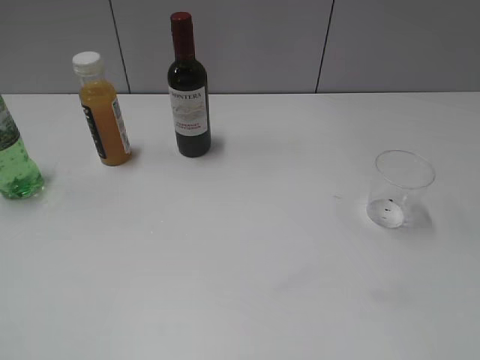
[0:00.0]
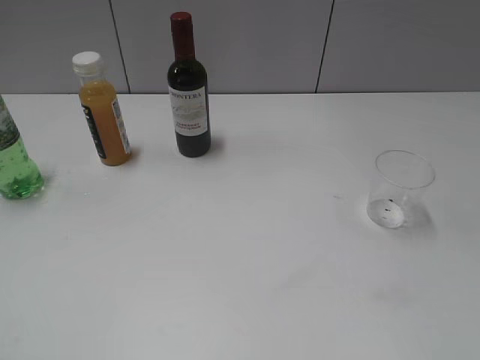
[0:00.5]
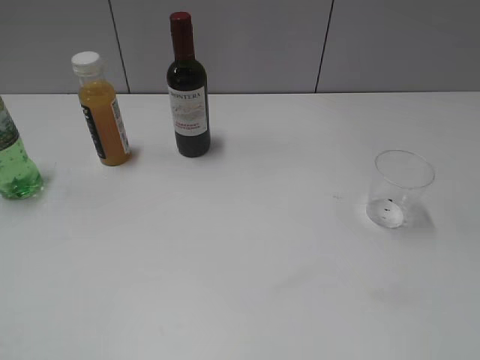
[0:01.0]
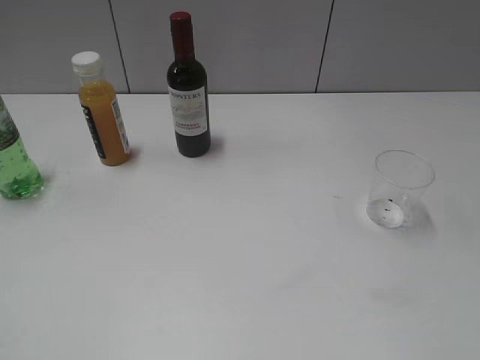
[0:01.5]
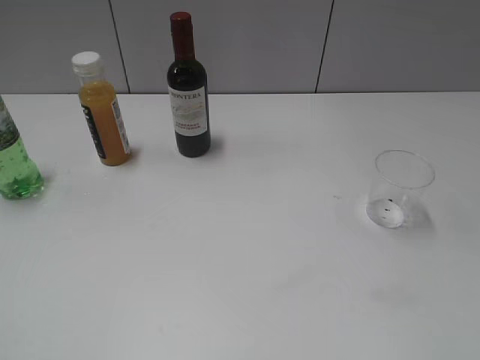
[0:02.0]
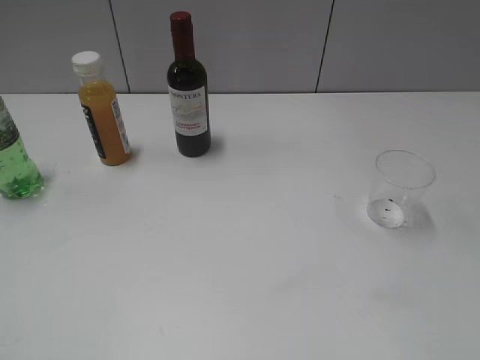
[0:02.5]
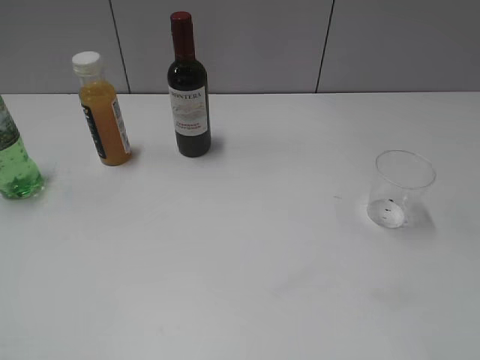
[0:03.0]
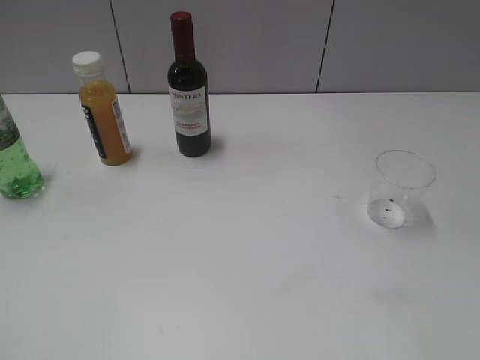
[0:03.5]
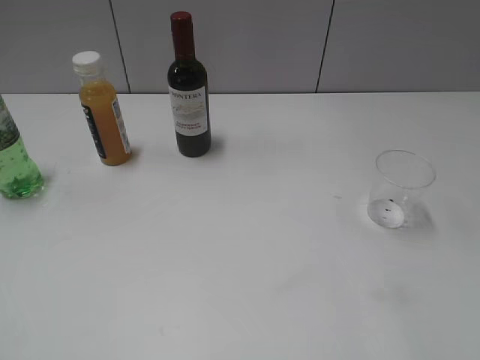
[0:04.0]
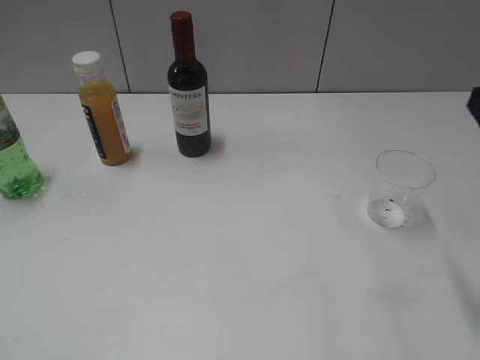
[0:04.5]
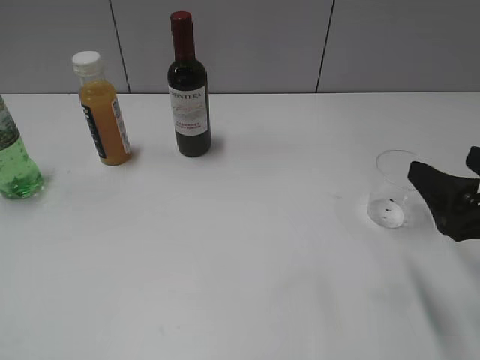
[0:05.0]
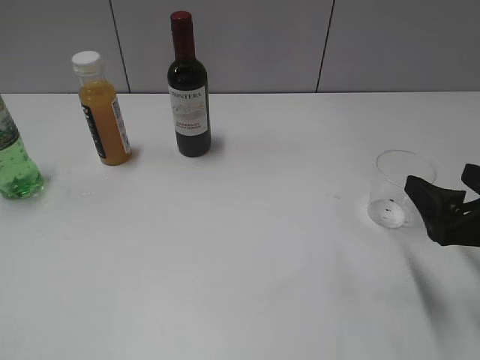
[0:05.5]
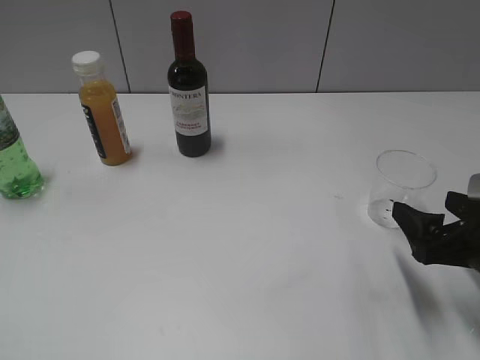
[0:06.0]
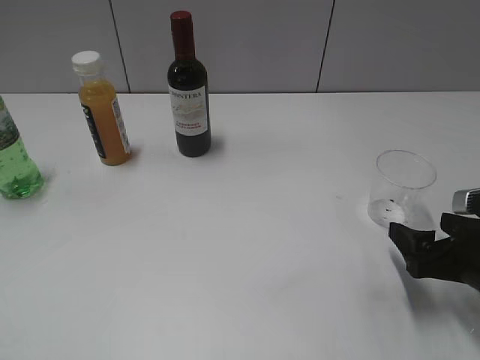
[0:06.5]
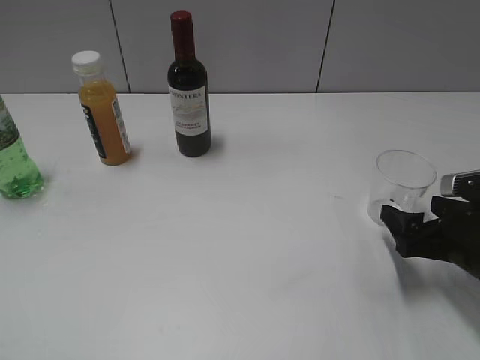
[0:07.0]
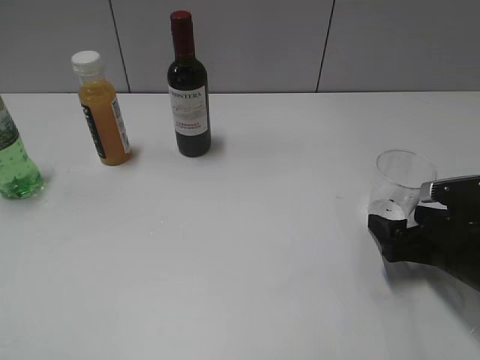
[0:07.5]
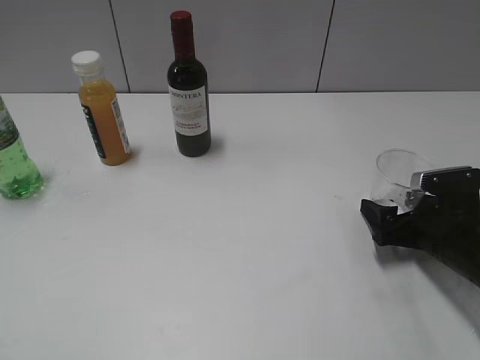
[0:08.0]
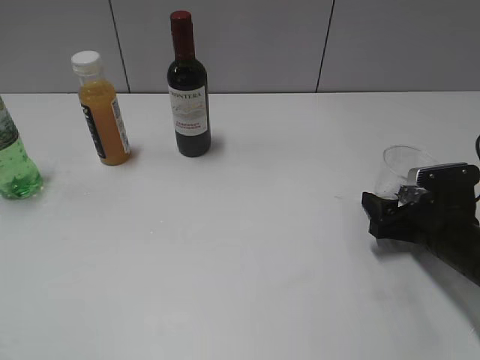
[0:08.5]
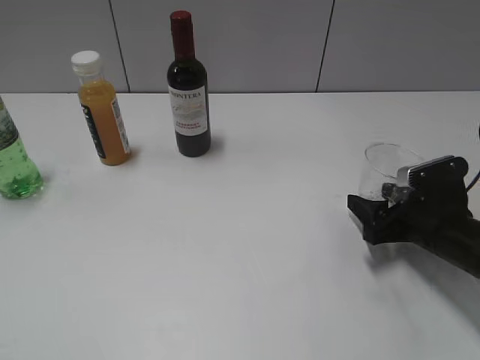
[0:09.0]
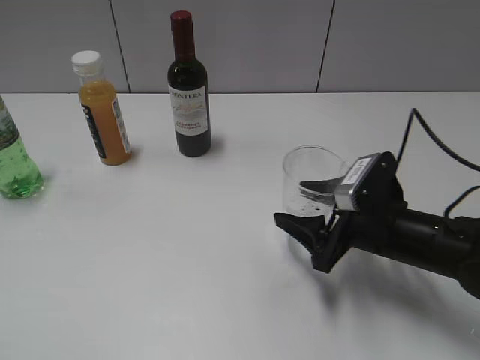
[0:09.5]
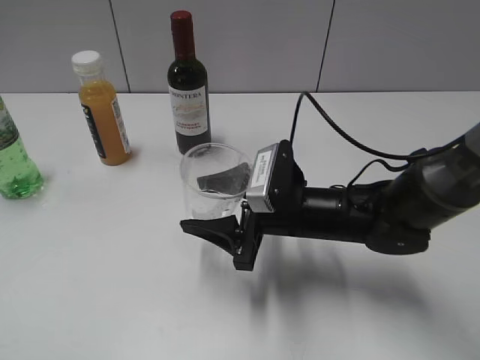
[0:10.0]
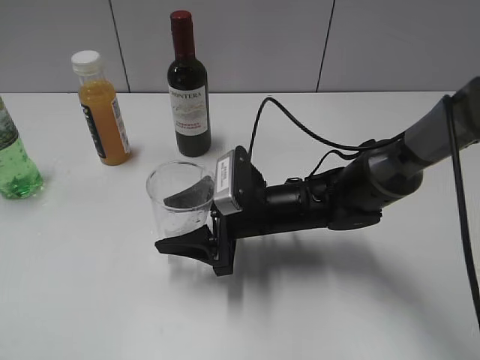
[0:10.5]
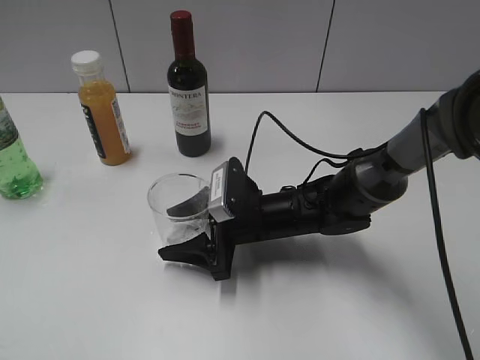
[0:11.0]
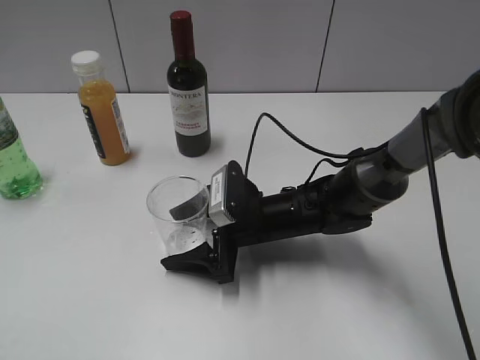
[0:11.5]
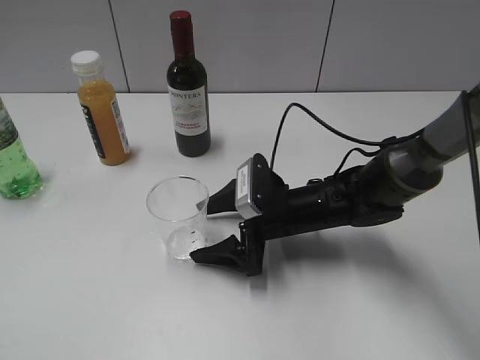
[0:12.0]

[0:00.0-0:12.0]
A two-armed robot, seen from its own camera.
Step, 0:02.5 to 0:08.5: Grasp the transparent cup with right gripper.
0:04.0 to 0:06.0: The right gripper moves downward and forward, roughly 20 cm, and opens.
0:06.0 to 0:08.0: The right gripper moves downward and forward, about 10 cm.
0:08.0 to 0:10.0: The right gripper moves to the left, roughly 20 cm, and closes up.
0:10.0 to 0:12.0: The right gripper moves about 5 cm, and opens its fingers.

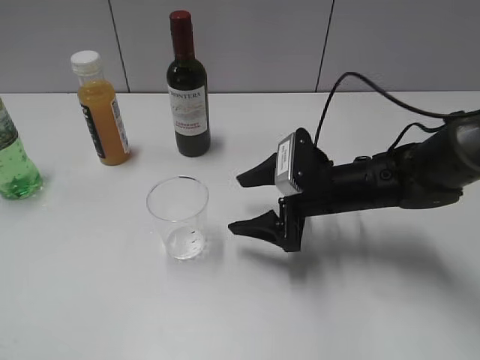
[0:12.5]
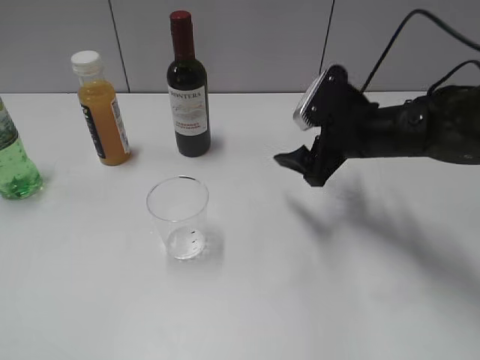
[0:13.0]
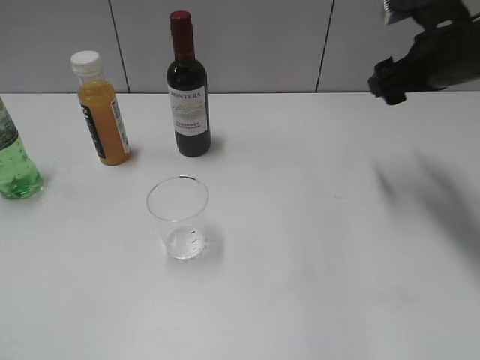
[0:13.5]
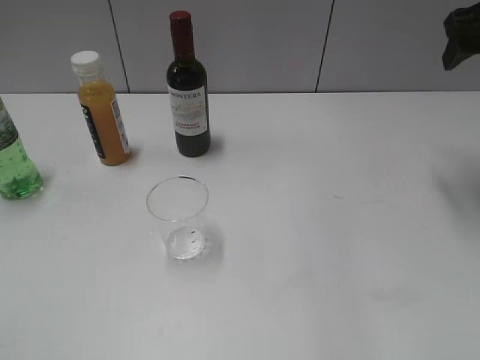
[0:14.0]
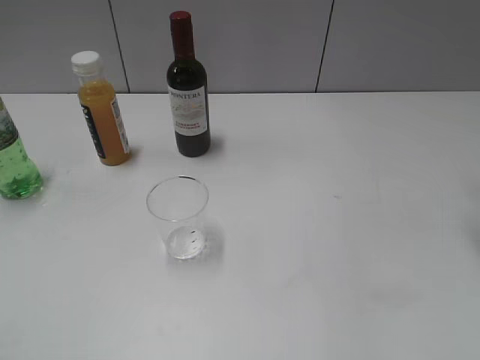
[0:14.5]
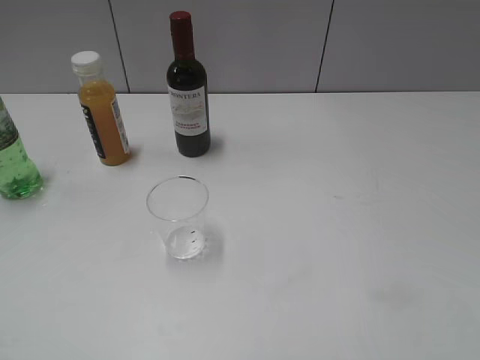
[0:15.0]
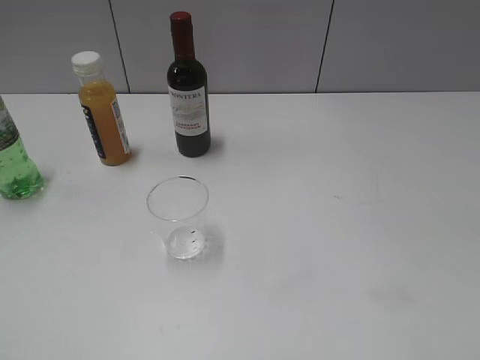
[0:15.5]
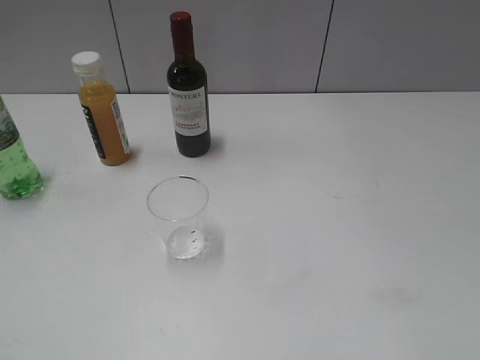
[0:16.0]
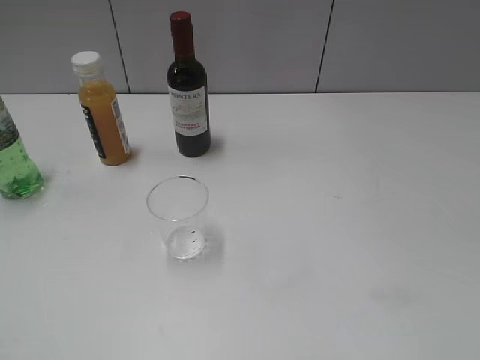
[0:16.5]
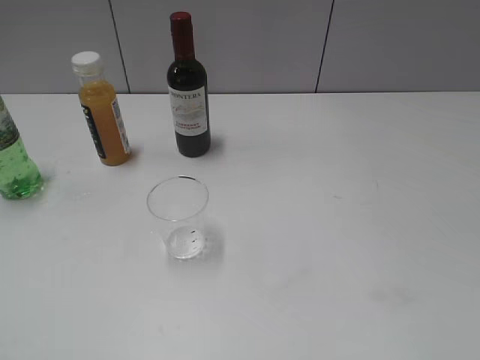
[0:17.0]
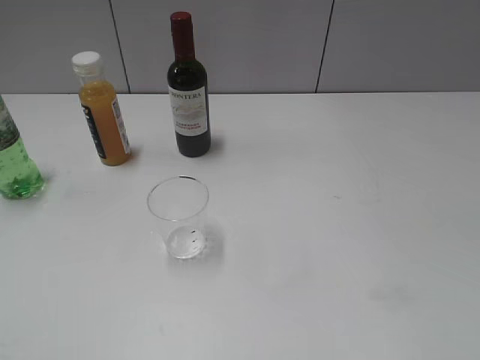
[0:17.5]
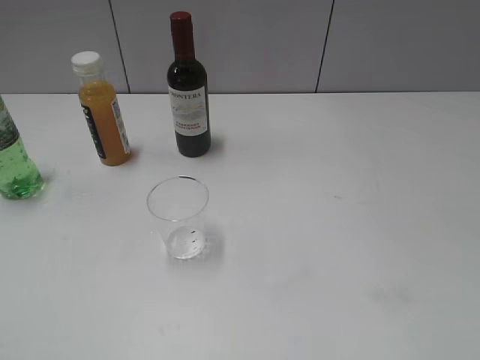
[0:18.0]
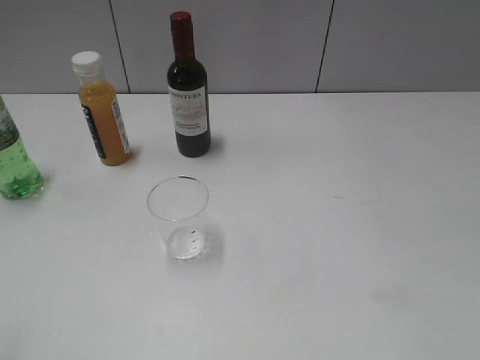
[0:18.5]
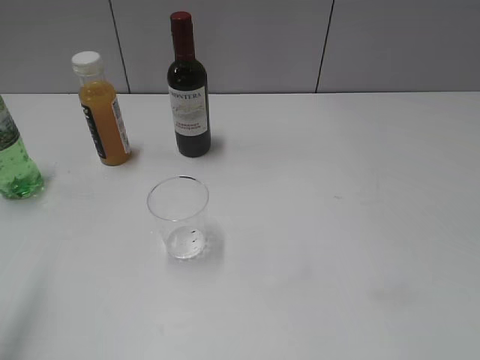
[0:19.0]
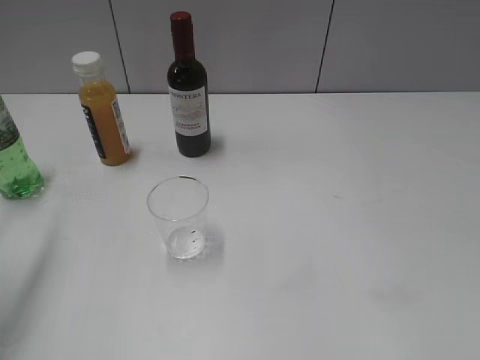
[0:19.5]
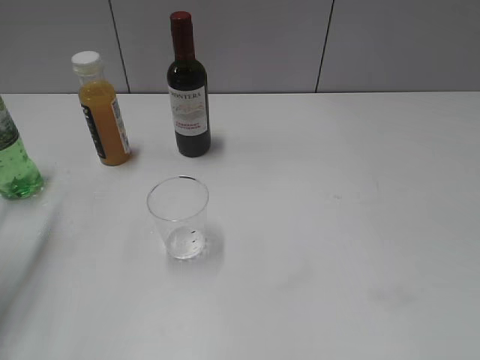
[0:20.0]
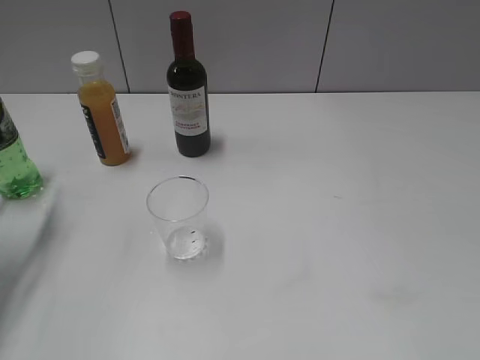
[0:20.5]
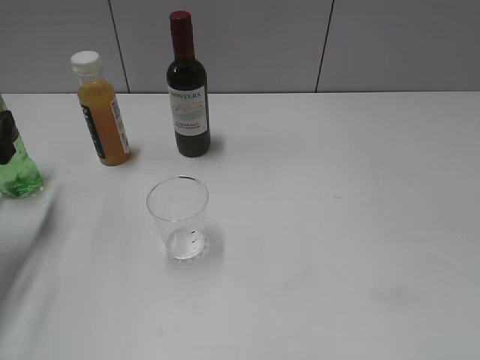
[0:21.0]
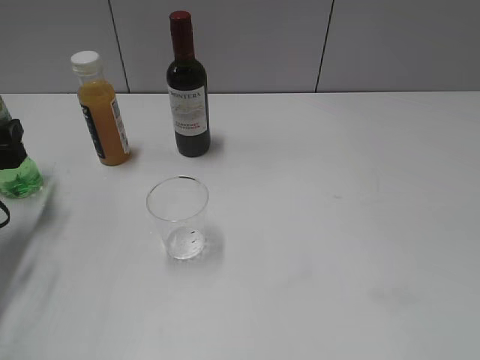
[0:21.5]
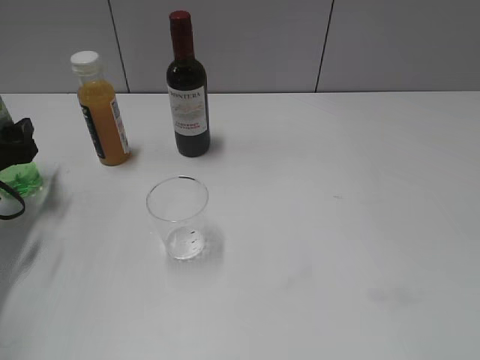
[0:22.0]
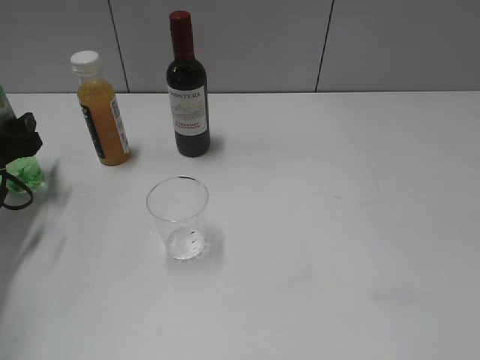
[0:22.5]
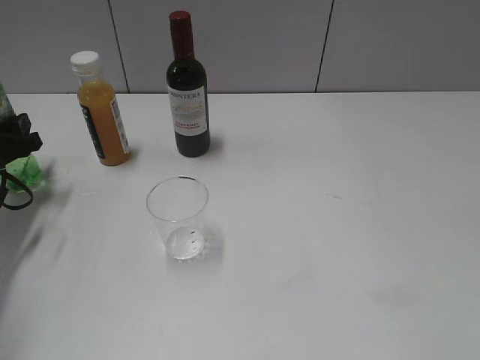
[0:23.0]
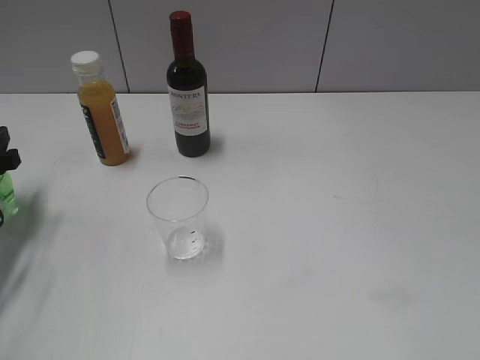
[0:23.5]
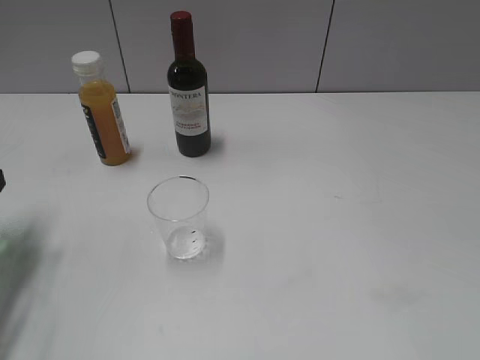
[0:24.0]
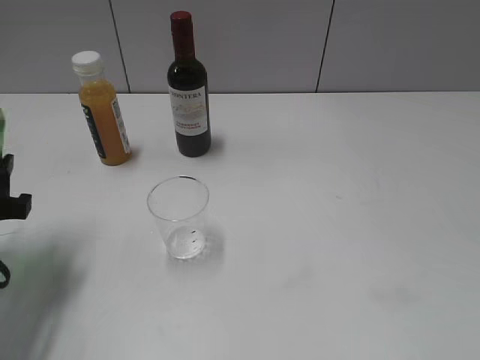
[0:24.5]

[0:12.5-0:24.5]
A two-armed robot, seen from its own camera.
Step, 0:12.5 to 0:22.5: Grasp the bottle with sprite with left gripper.
0:12.5 to 0:14.5: The right gripper moves upward and to the right, about 30 cm, and closes its fingers.
0:18.5 to 0:20.5: The left gripper shifts about 25 cm forward and downward.
0:20.5 to 0:22.5: The left gripper travels downward and forward by approximately 10 cm.
0:22.5 to 0:24.5: The left gripper goes about 15 cm backward, to the right and upward, and closes.

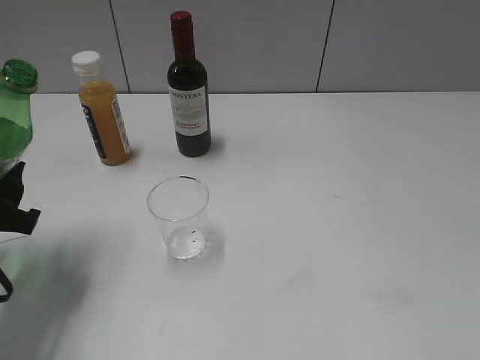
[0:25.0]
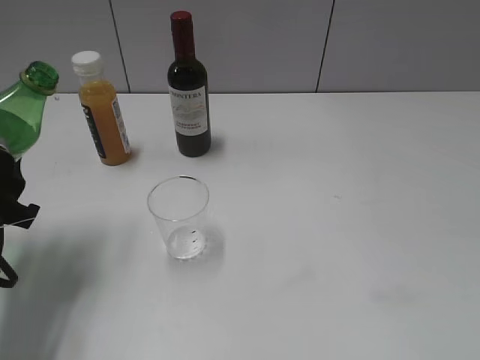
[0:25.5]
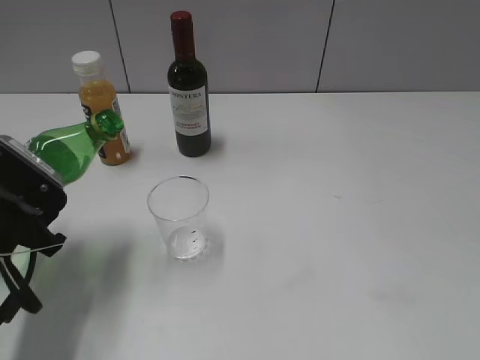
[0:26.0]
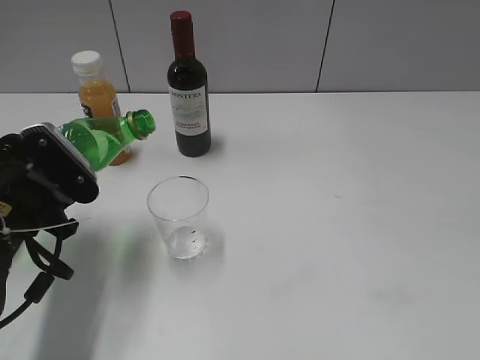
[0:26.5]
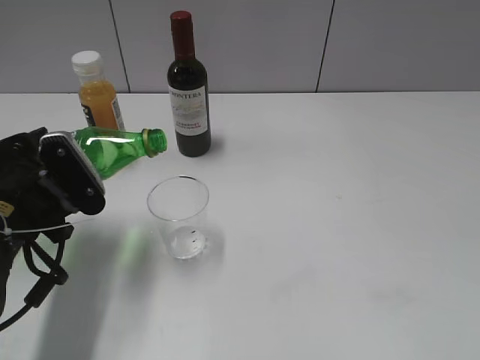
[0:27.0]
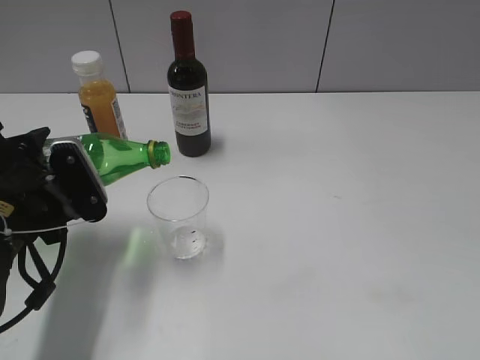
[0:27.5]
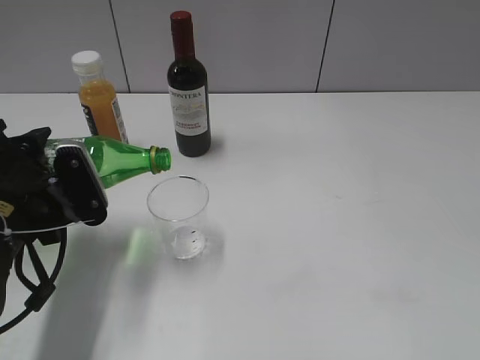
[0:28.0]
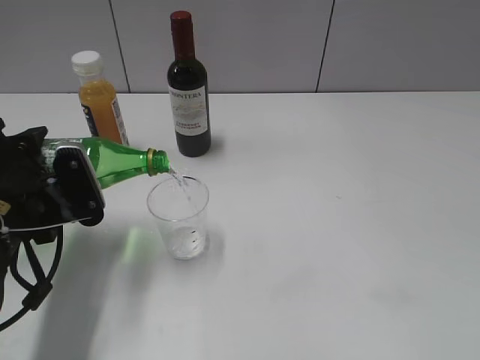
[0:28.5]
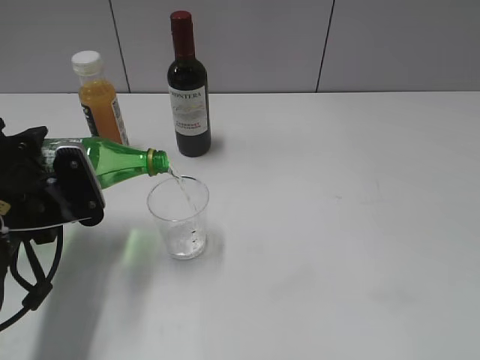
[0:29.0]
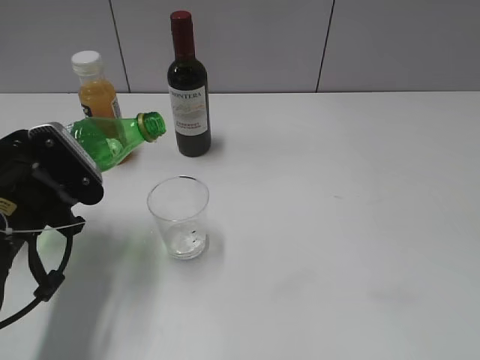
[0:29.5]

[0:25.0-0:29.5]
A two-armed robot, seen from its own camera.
Step, 0:25.0 to 0:29.5: Pour the sprite from bottle to cup with left gripper.
0:25.0 to 0:27.0: The left gripper travels to the right by some 5 cm.
0:27.0 to 0:29.5: There are only small adjustments of the grippers.
